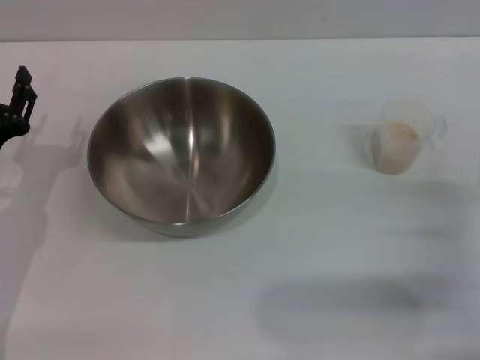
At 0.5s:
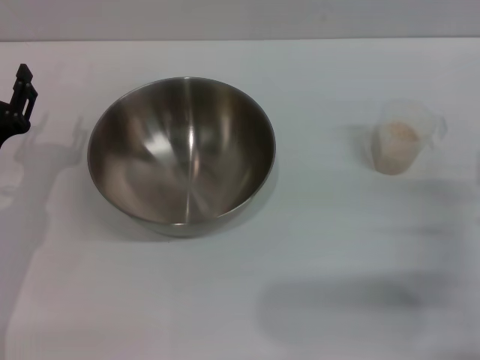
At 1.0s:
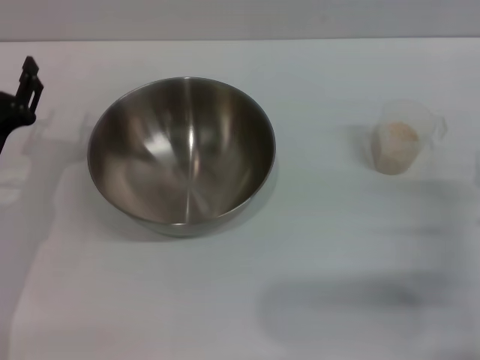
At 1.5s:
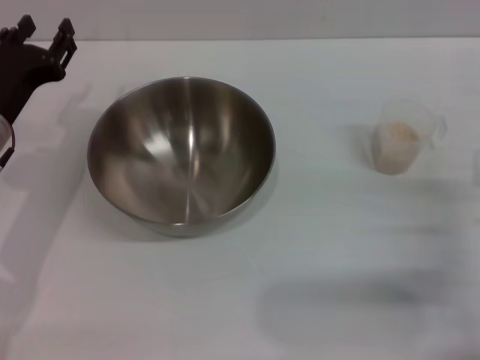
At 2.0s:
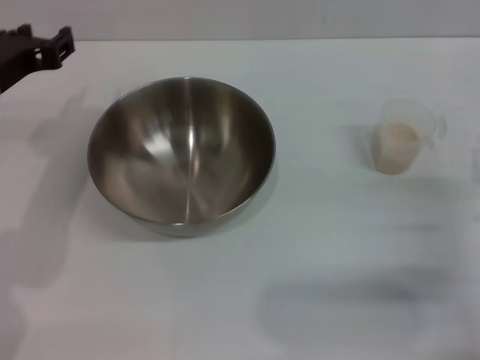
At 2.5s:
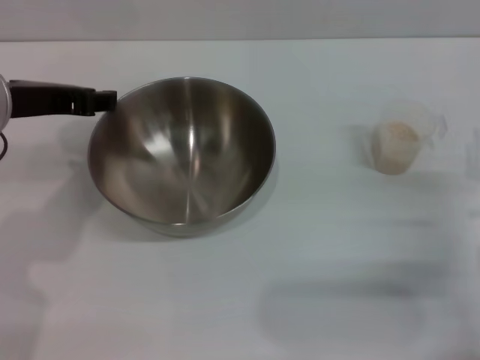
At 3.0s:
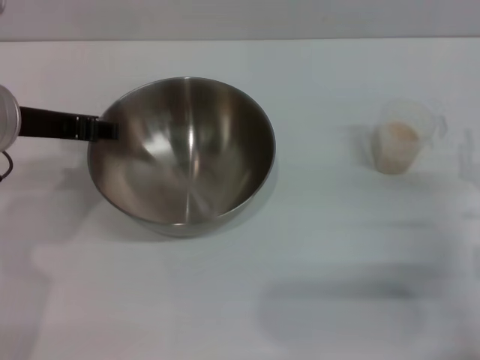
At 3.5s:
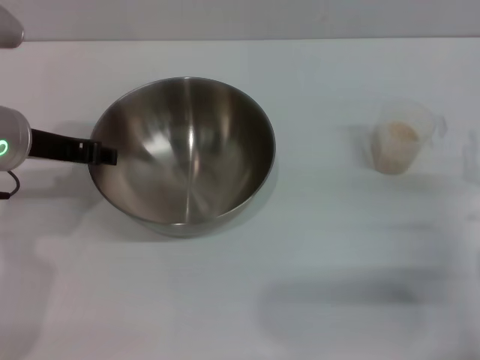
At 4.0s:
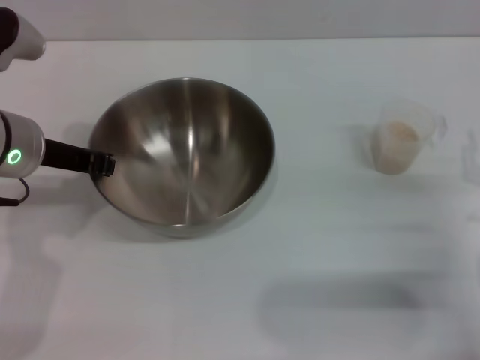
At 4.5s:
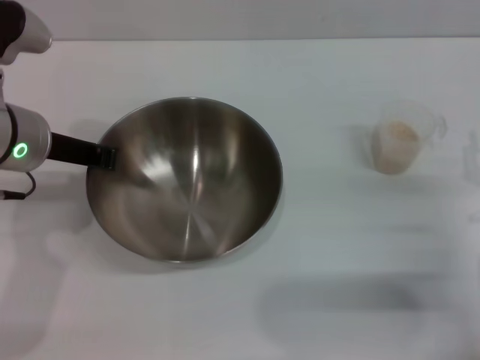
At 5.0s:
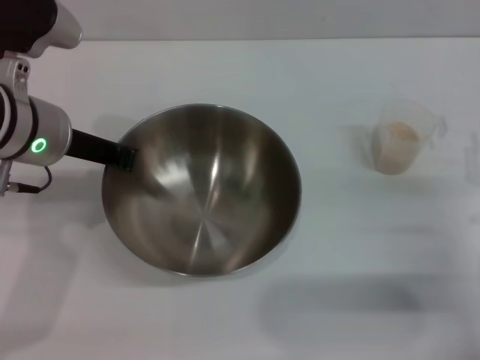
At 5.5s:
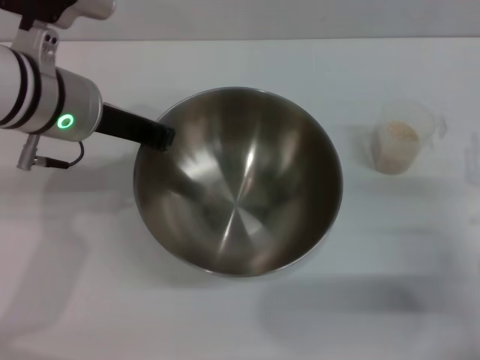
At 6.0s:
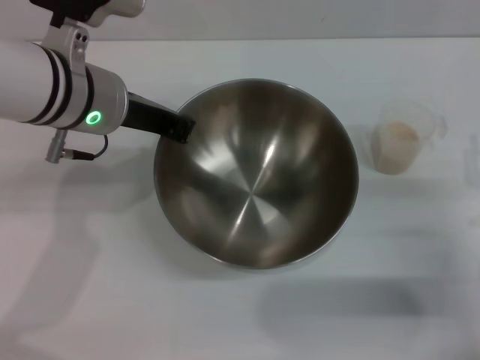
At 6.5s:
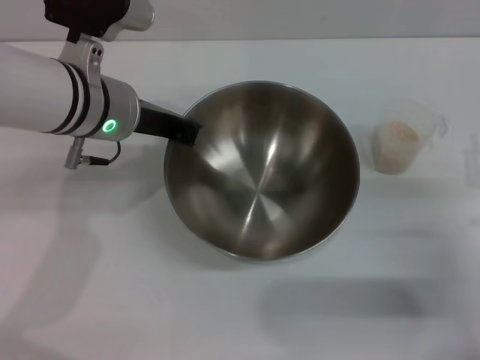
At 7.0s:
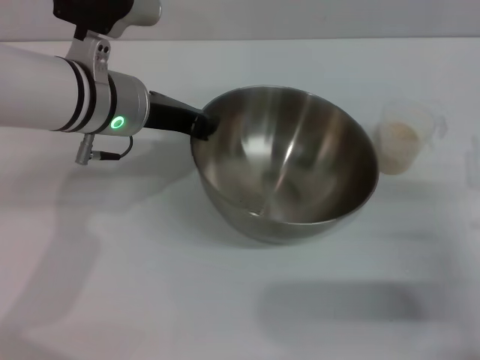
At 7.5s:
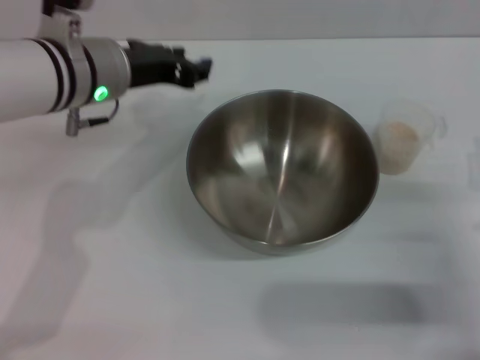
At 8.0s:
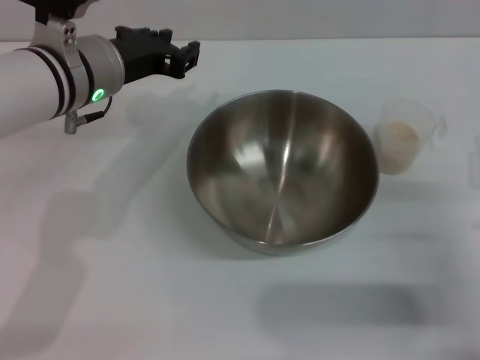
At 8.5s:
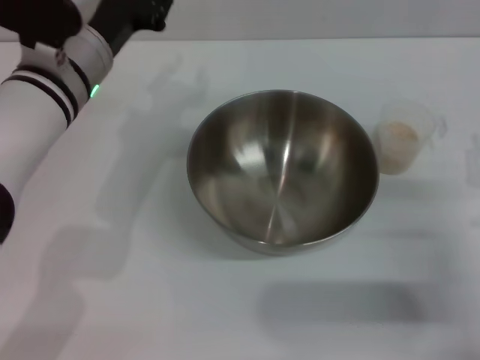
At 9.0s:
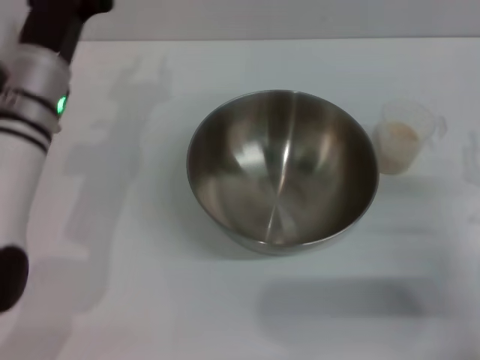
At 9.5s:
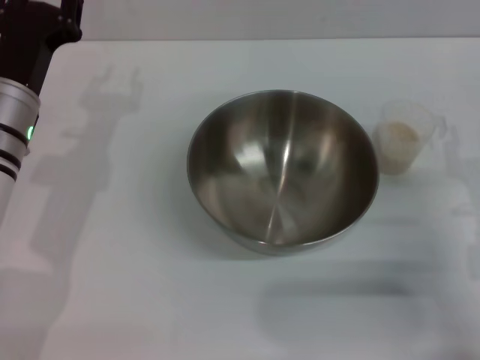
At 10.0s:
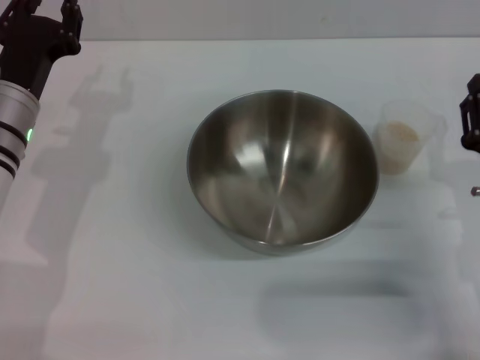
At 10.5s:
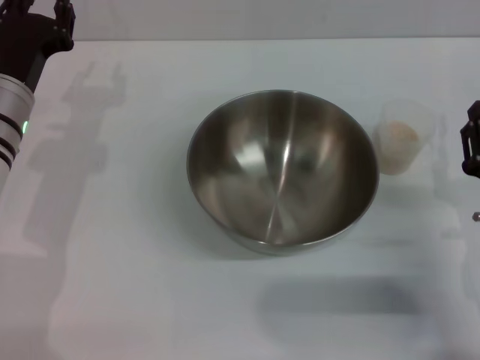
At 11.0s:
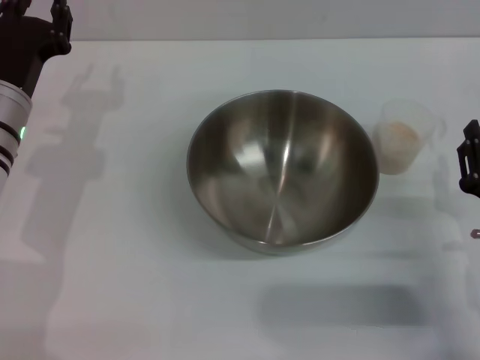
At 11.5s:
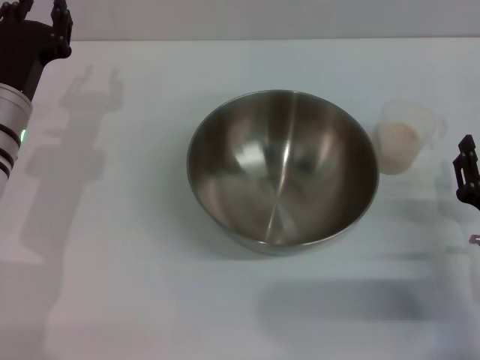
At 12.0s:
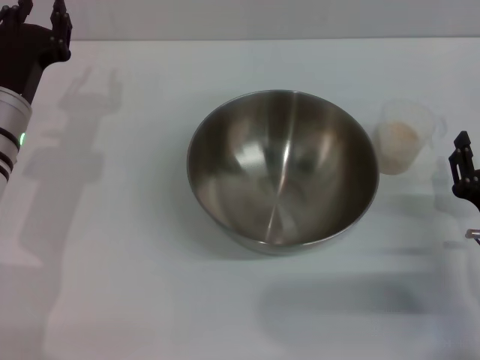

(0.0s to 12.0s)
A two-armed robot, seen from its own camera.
Task of the whole recording: Place the bowl in the middle of the table with one hand and pour the rice from the grain cup into it with the other hand.
Step, 0.0s - 5.5s: Pick up the bowl with the left gripper.
Step, 6.0s - 7.5s: Place the bowl in the center of view with the left gripper.
0.0s - 2.0s: The left gripper goes about 15 cm upward and forward.
4.0s - 6.0s: The left gripper travels to the right by roughly 5 cm, and closes its fingers.
6.0s - 8.0s: The left gripper opens up.
8.0s - 10.0s: The left gripper shifts about 10 cm downward and to the left.
10.0s - 12.0s: There are only small adjustments of the grippers.

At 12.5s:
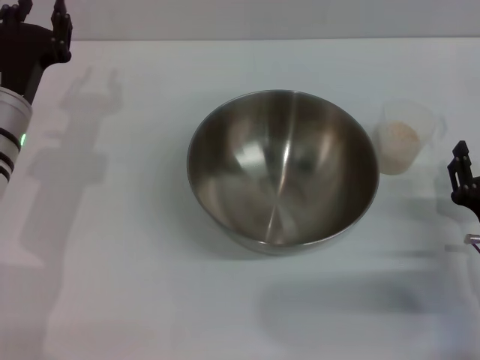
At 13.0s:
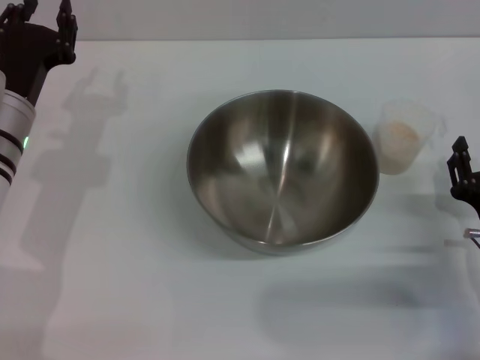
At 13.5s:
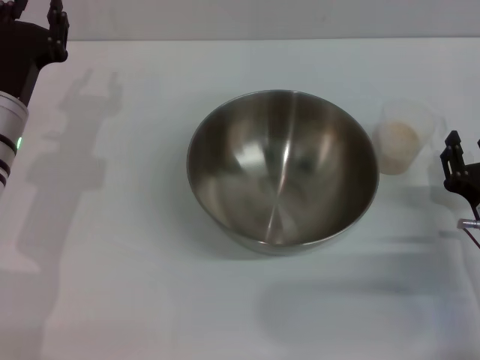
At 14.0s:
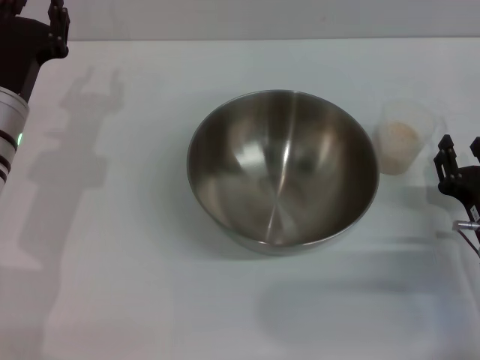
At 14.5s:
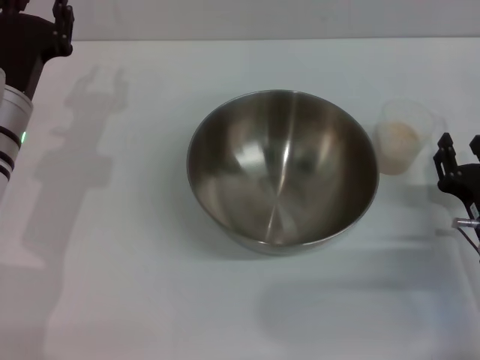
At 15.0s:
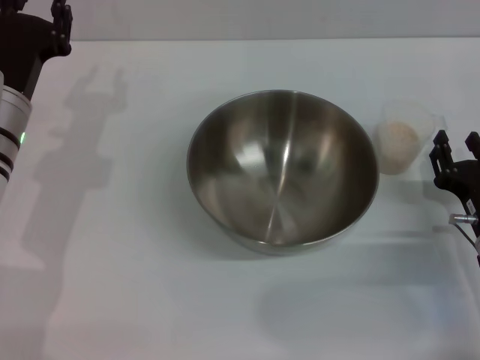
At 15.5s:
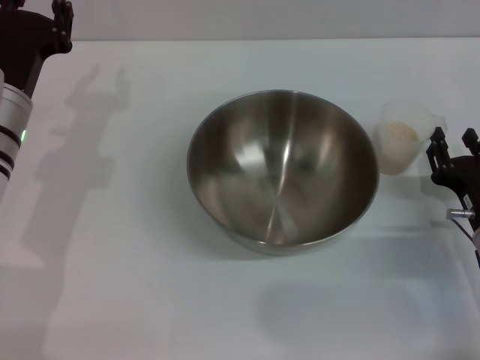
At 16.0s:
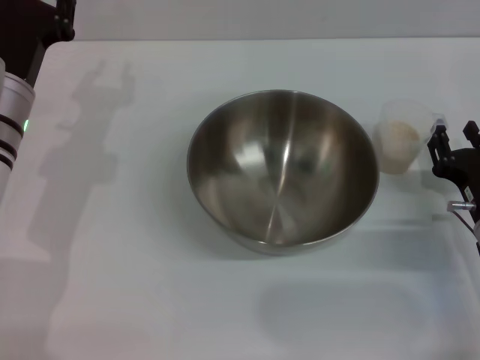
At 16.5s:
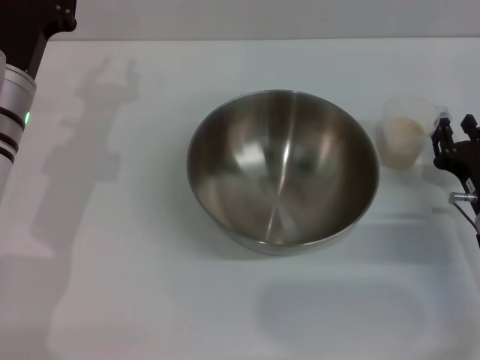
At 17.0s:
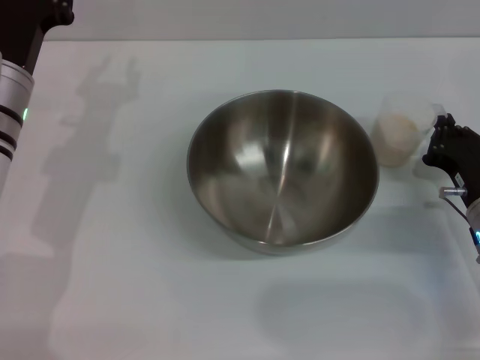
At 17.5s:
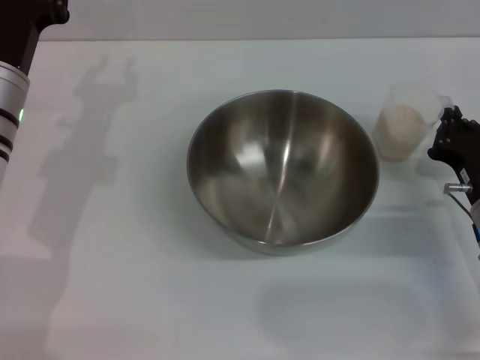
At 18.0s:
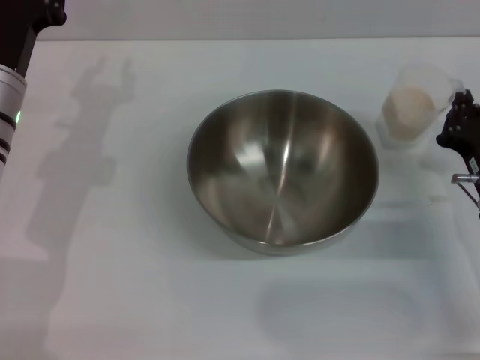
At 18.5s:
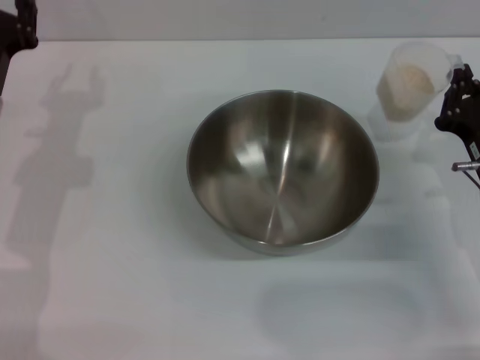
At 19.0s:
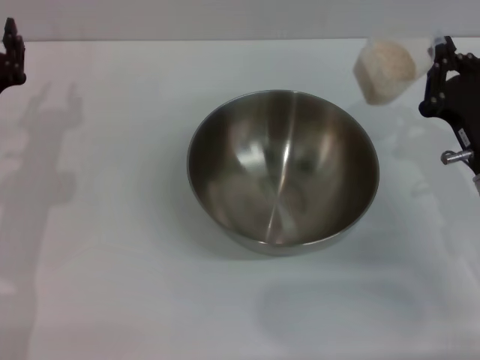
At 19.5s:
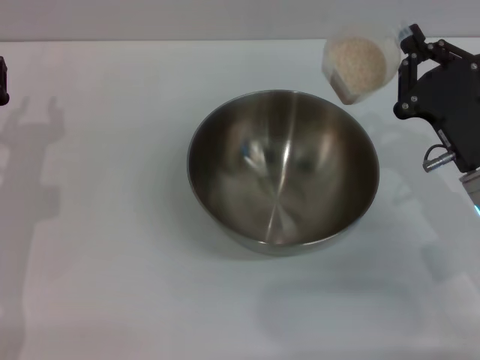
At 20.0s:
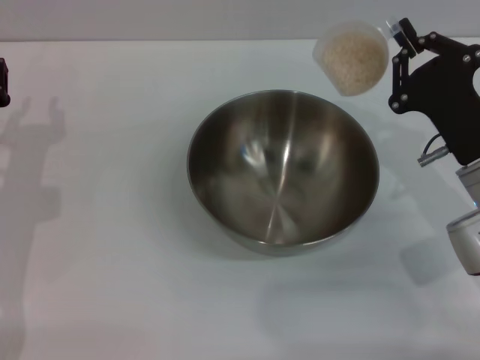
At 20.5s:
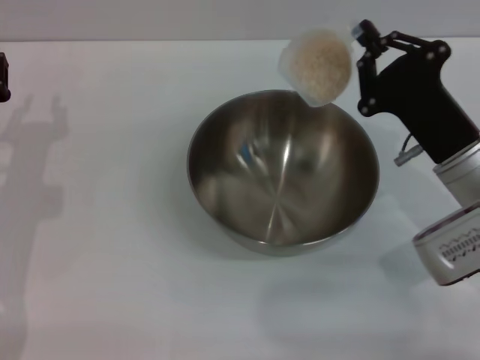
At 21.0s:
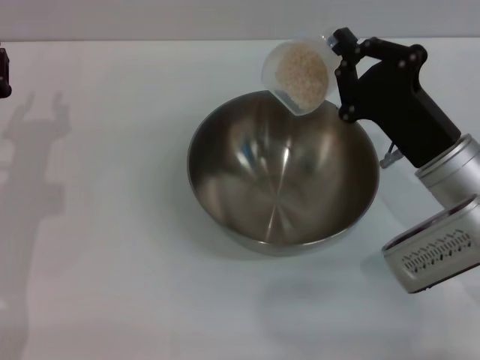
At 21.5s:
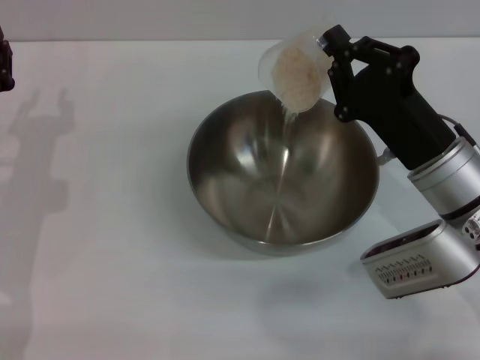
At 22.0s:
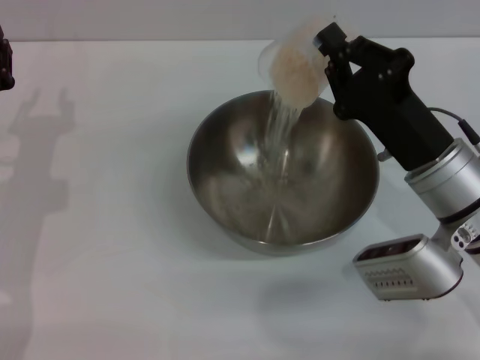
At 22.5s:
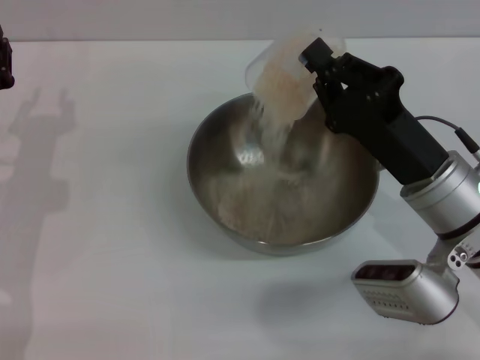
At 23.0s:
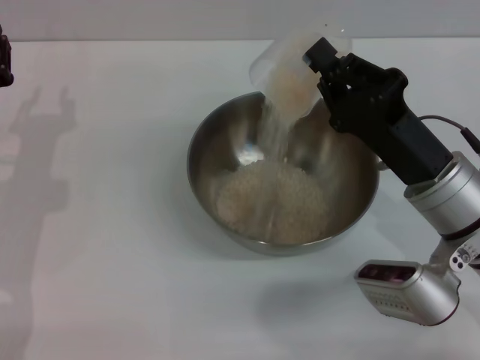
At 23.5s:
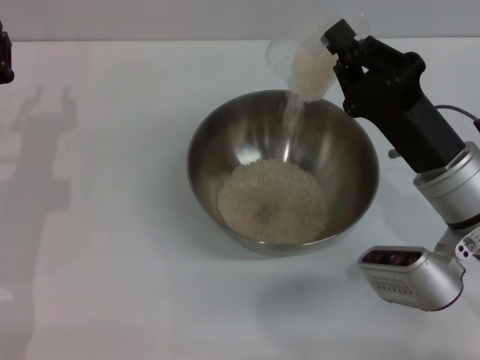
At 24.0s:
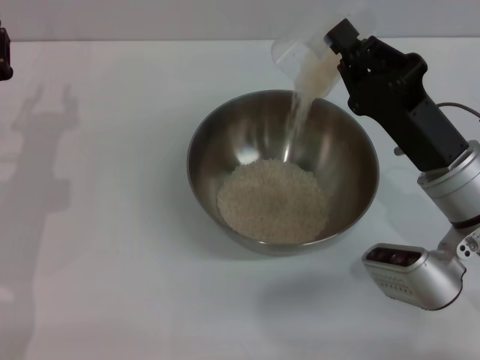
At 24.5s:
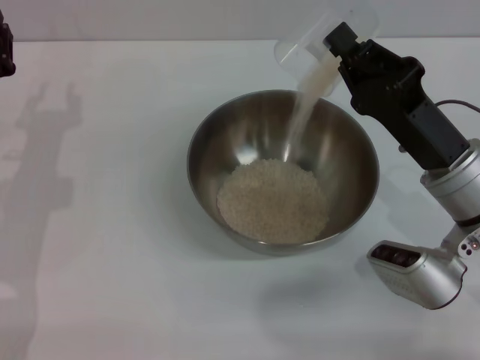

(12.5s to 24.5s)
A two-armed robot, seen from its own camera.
Task of the whole recording: Place the bowl in the middle of the table with one hand and pour the rice from the grain cup into it with the other hand.
Step, 12.5s - 18.0s: Pick up the cup with rice in it with the right gripper.
12.5s - 16.5s: There are only small adjustments of the grippers.
16.5s - 18.5s: The right gripper closes its fingers.
18.5s - 20.5s: The right gripper ends up about 5 cm from where it was; the left gripper changes place by approximately 5 cm.
22.5s - 24.5s: There are only small adjustments of the grippers.

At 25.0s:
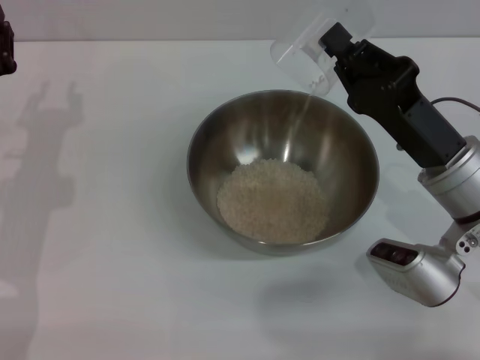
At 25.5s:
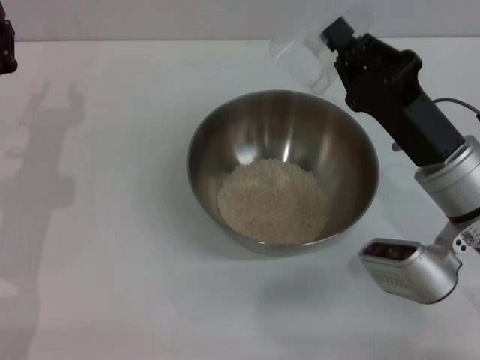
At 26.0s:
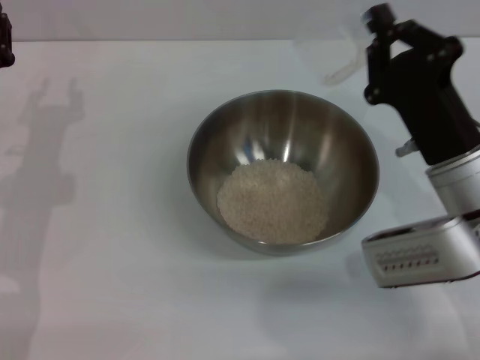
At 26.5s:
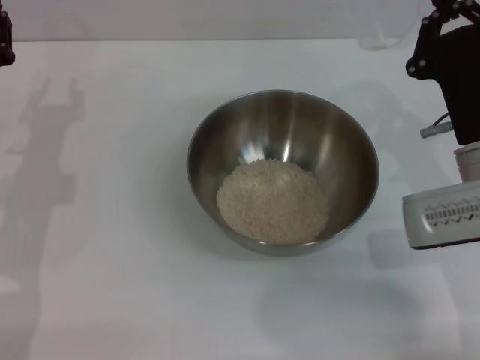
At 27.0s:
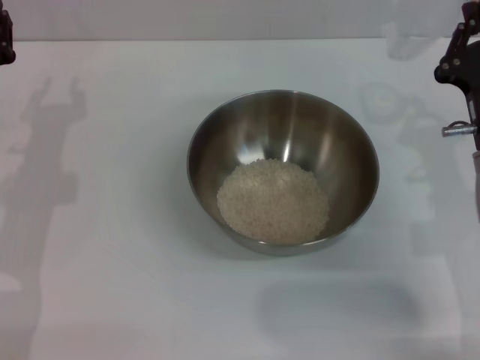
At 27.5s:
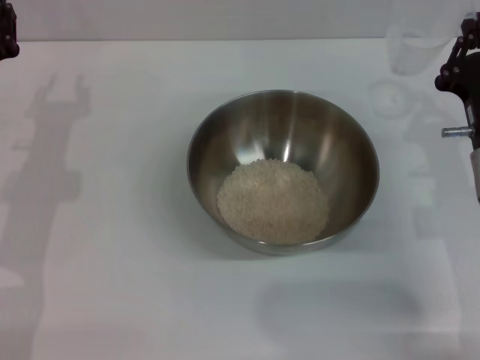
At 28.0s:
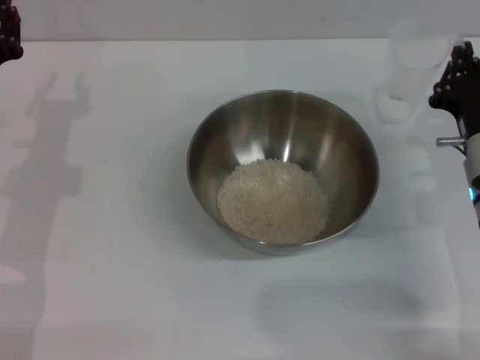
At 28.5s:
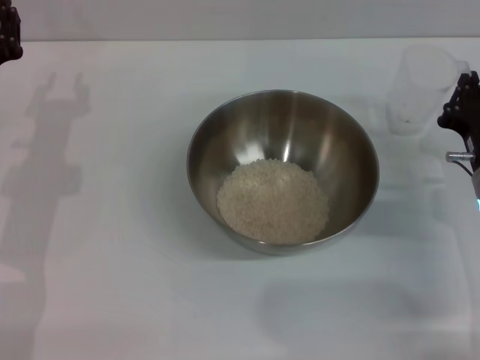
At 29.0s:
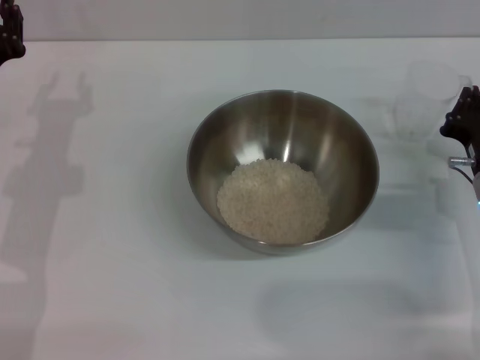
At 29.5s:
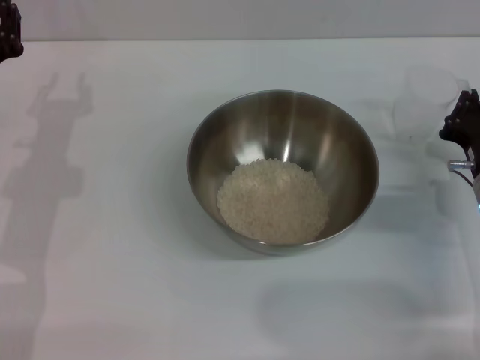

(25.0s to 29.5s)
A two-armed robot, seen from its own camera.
Task of the whole recording: Place the bowl in the middle of the table with one hand and pour the rice from the grain cup into it with the other hand.
27.0s - 29.5s: The right gripper heads downward, covering about 5 cm.
